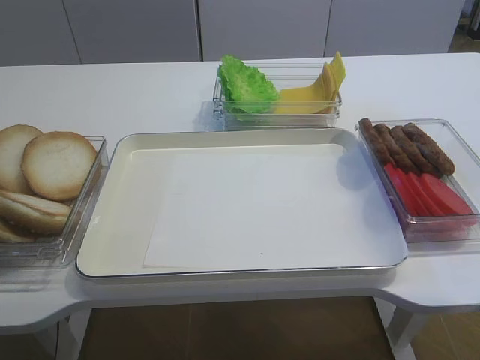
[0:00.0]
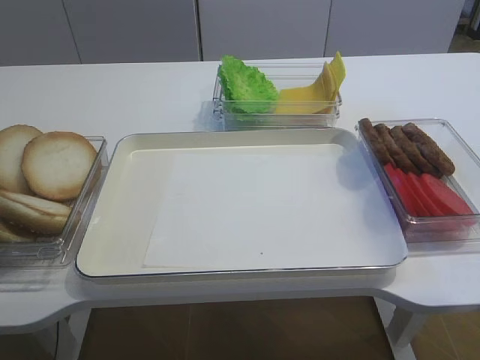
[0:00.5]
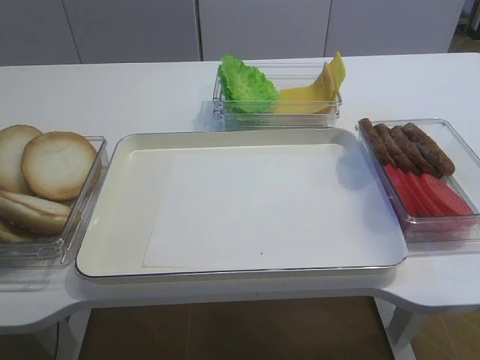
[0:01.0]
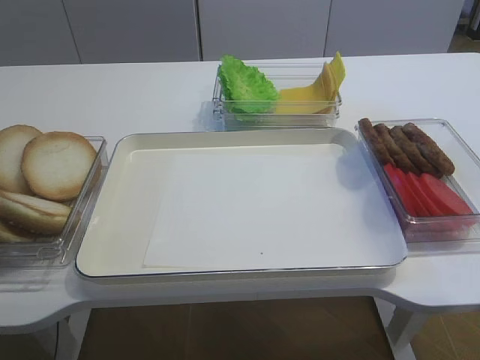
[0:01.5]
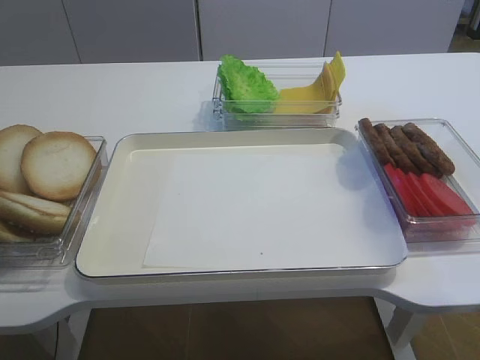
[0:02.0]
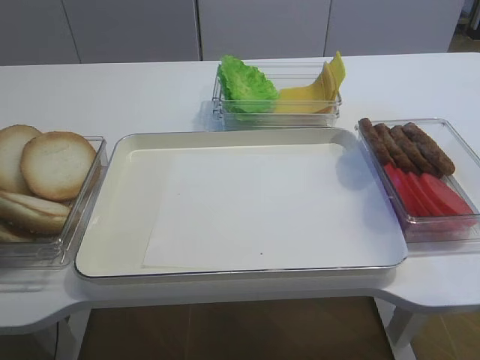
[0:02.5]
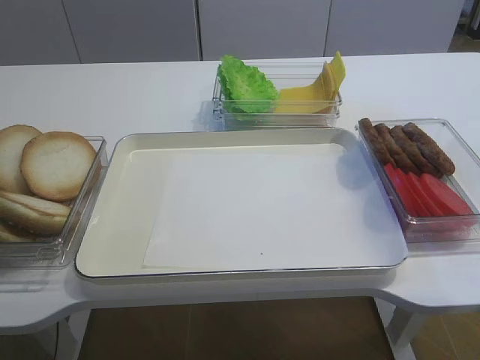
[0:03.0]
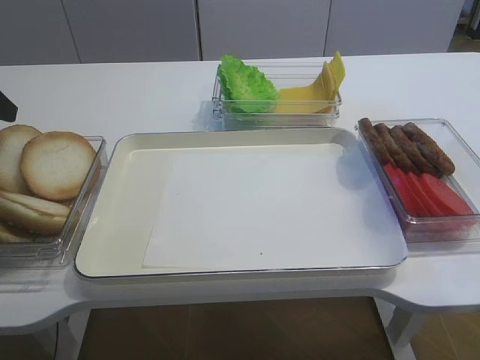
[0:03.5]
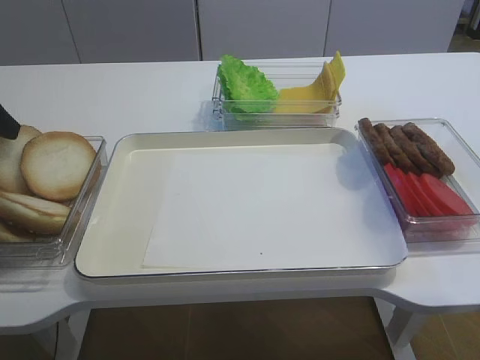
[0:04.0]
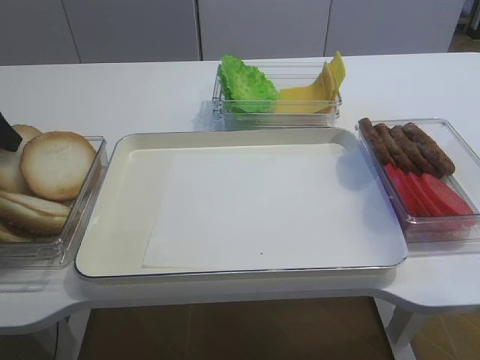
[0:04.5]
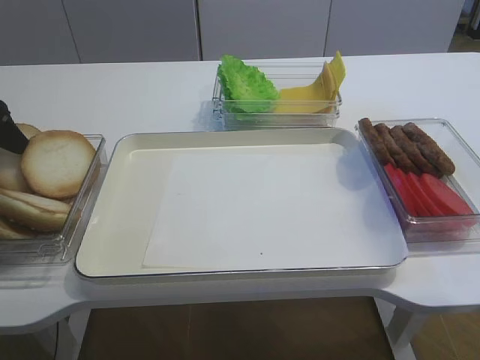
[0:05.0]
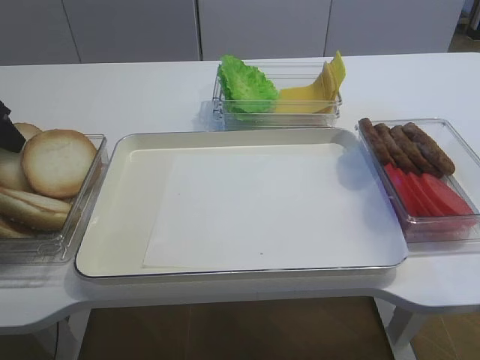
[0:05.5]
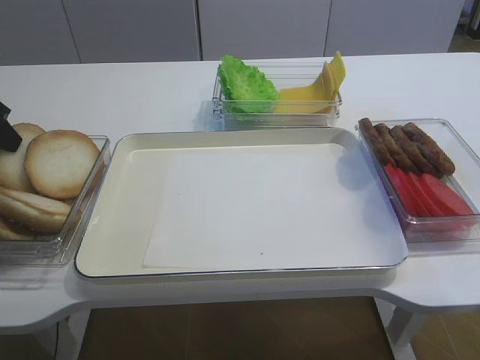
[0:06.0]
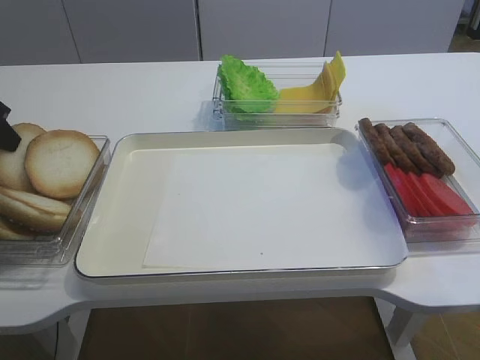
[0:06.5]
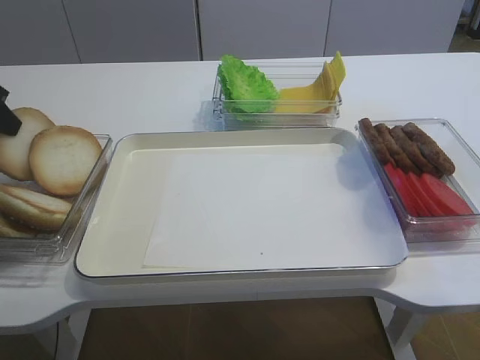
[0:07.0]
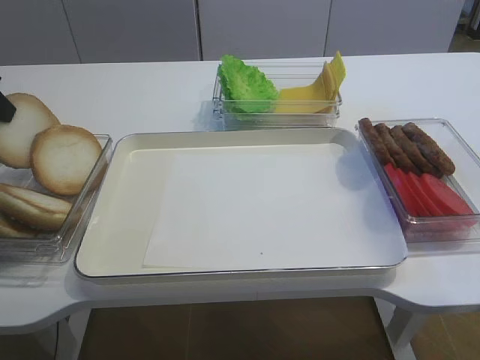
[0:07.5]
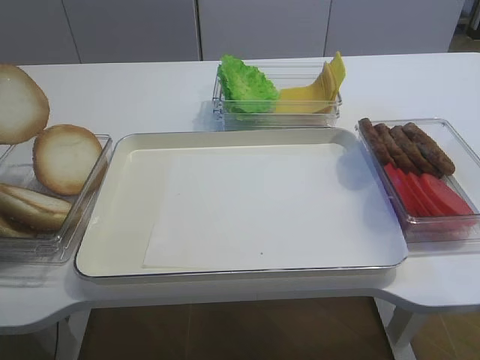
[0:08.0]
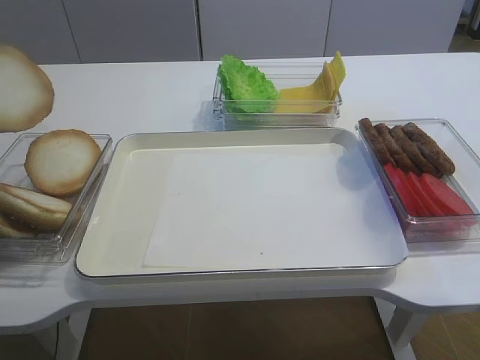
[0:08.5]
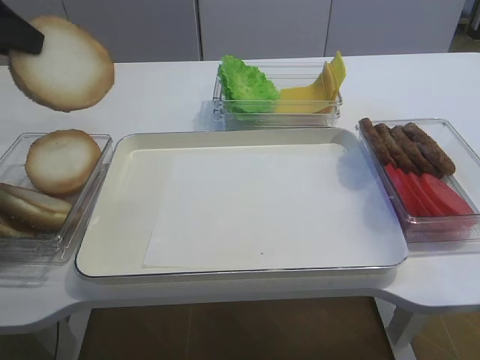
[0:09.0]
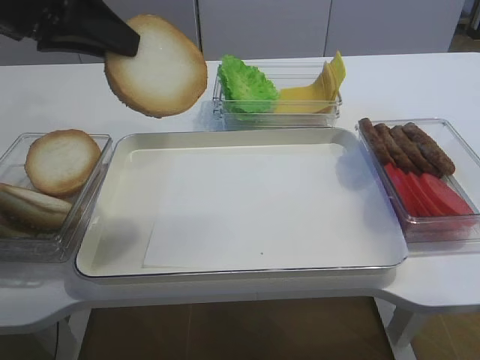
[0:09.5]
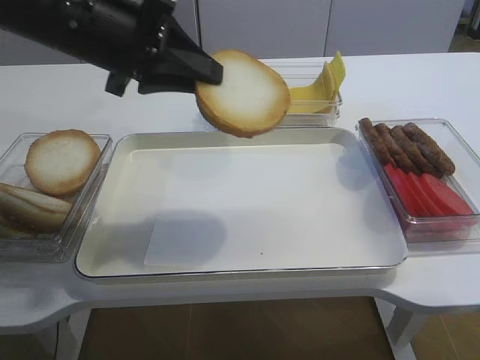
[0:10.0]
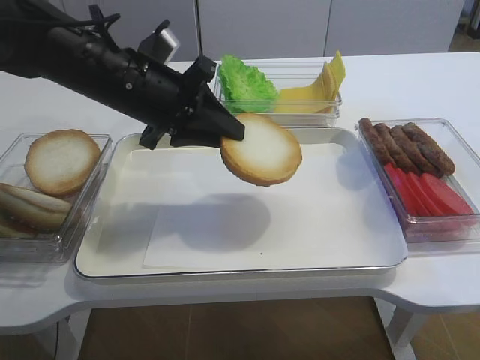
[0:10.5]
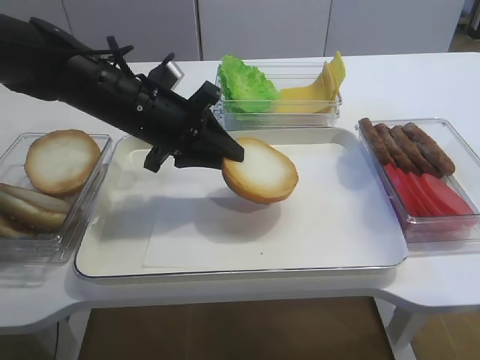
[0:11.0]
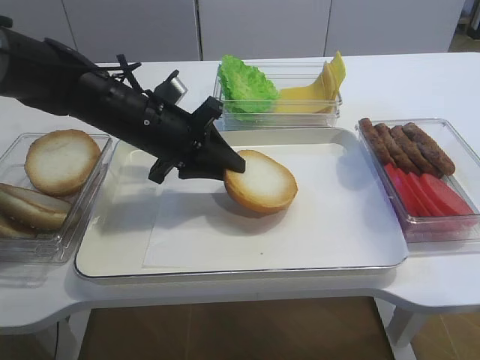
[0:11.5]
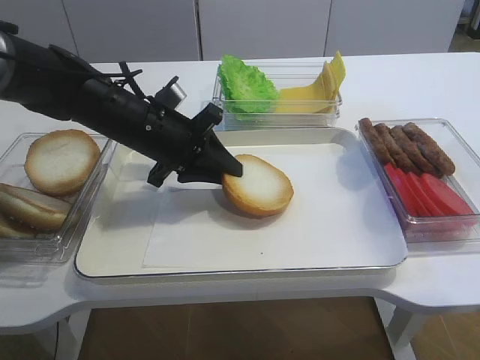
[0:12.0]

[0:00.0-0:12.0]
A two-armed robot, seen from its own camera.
Step, 0:00.0 to 0:08.0: Pick up the bread slice with the left gripper.
0:04.0 to 0:06.0: The left gripper closes its fingers.
0:06.0 to 0:08.0: The left gripper shifts some 5 cm upward.
0:08.0 to 0:10.0: The left gripper travels to the right by roughly 20 cm.
0:10.0 to 0:12.0: The left gripper moves downward, roughly 15 cm.

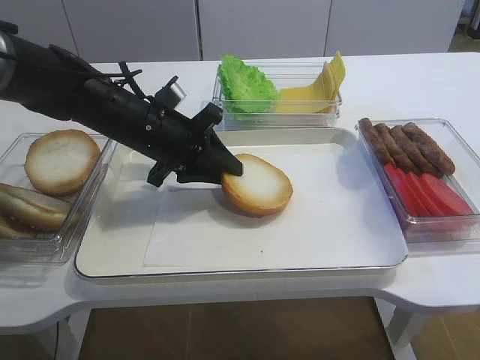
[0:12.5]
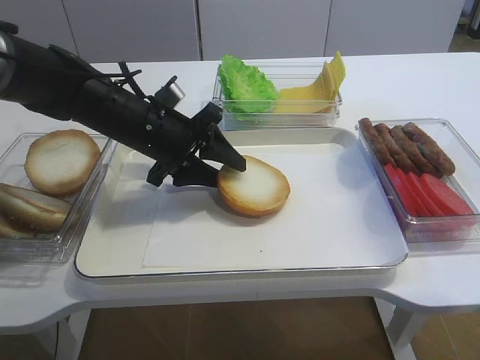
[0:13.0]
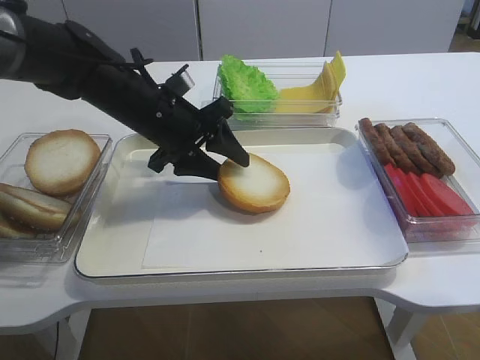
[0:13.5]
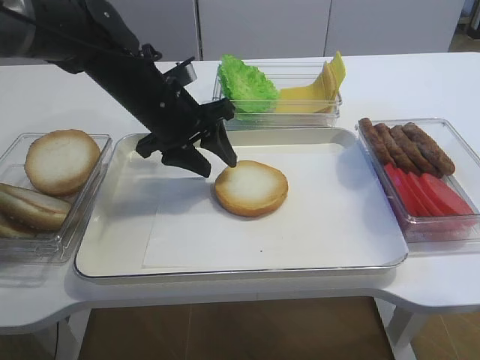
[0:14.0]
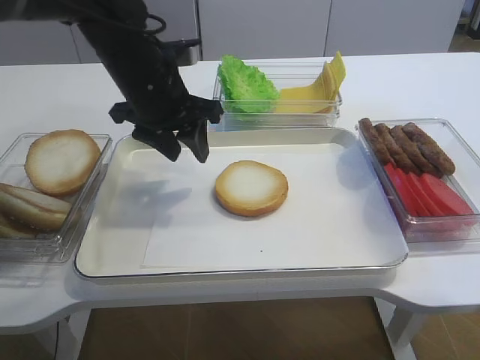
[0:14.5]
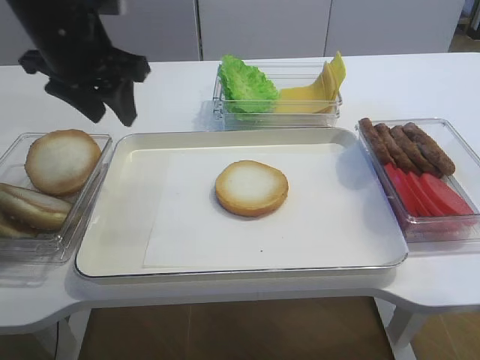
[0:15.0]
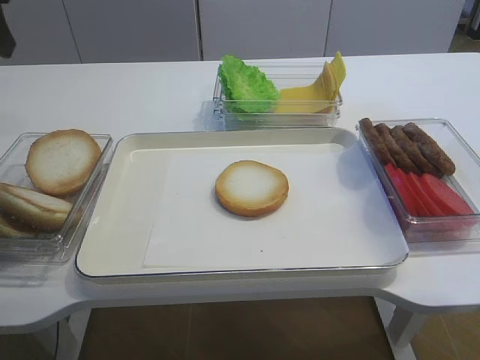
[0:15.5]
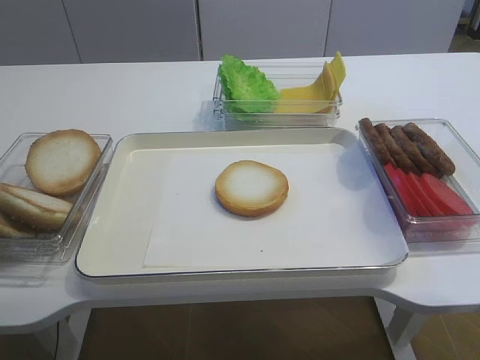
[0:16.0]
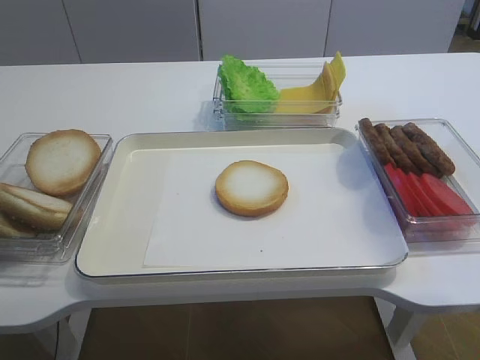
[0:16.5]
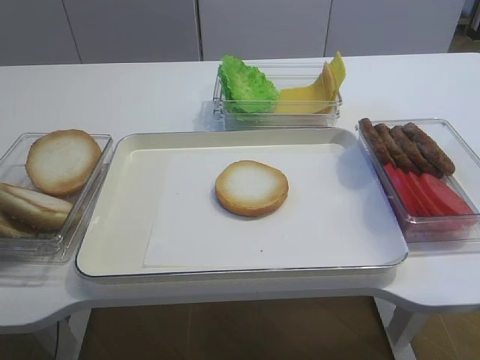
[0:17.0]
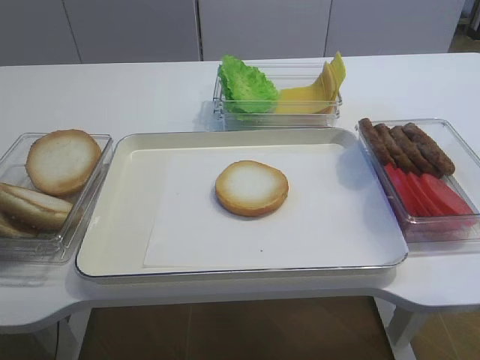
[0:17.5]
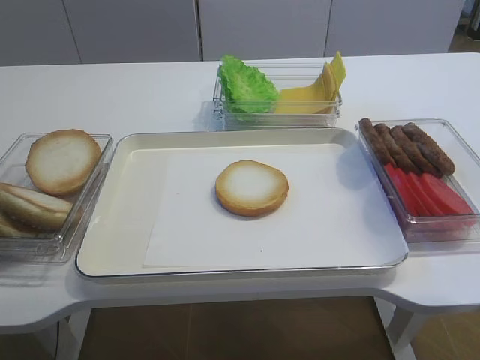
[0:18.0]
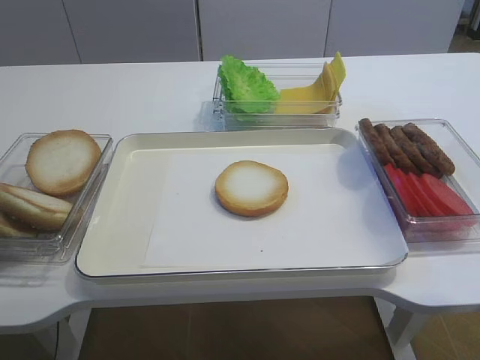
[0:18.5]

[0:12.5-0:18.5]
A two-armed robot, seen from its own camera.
0:12.5 to 0:14.5: The left gripper is displaced upward by about 5 cm, and opens.
0:14.5 to 0:16.5: The left gripper travels backward, to the left and upward by roughly 35 cm.
